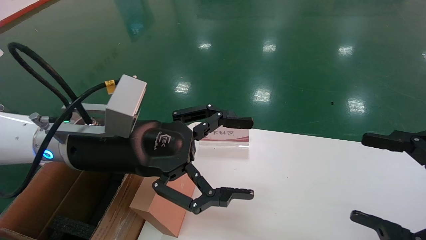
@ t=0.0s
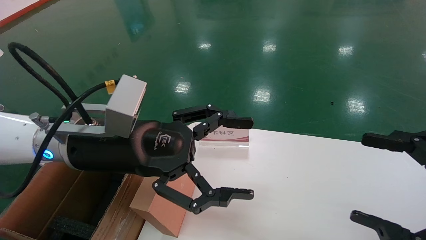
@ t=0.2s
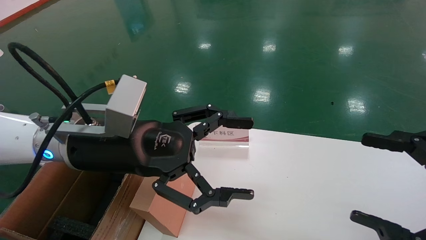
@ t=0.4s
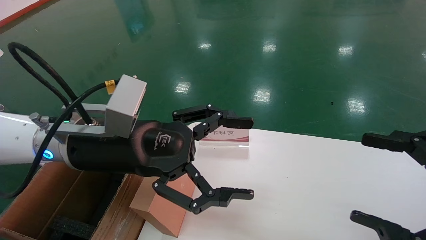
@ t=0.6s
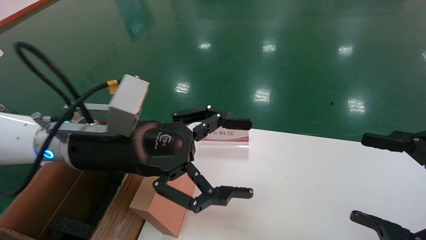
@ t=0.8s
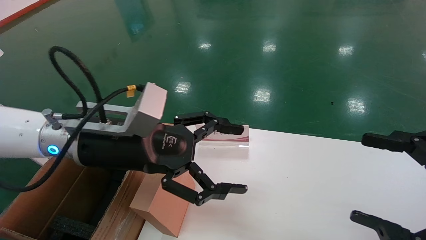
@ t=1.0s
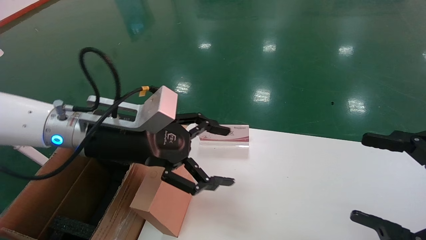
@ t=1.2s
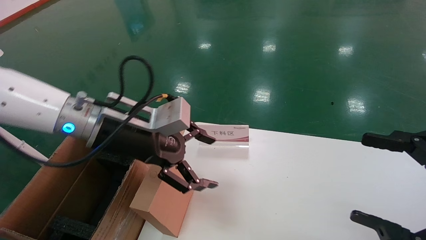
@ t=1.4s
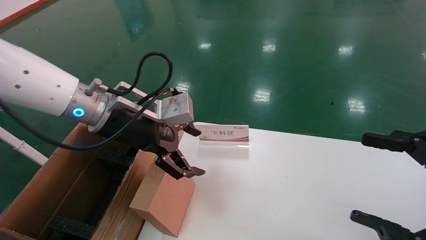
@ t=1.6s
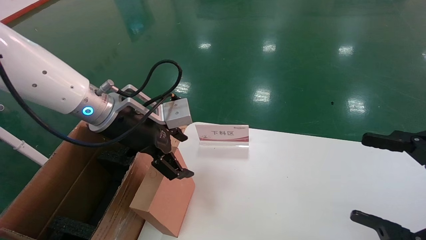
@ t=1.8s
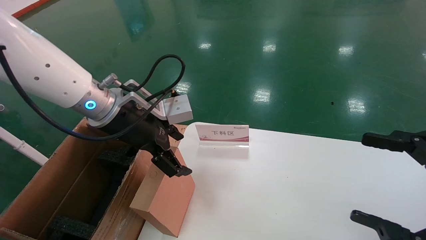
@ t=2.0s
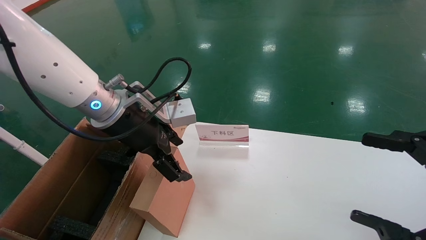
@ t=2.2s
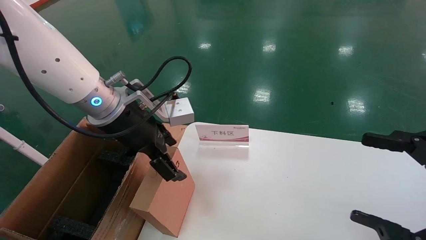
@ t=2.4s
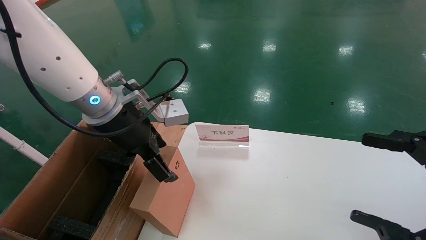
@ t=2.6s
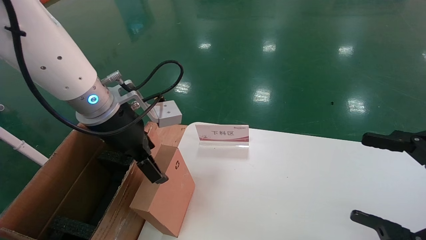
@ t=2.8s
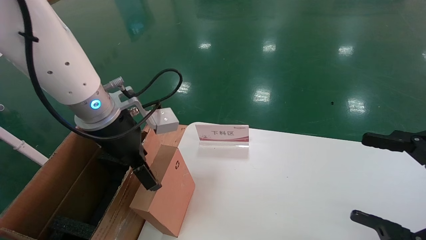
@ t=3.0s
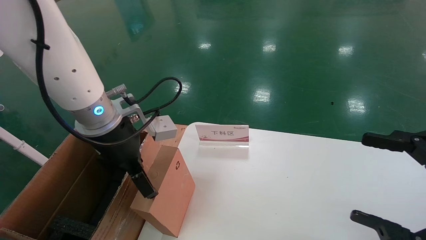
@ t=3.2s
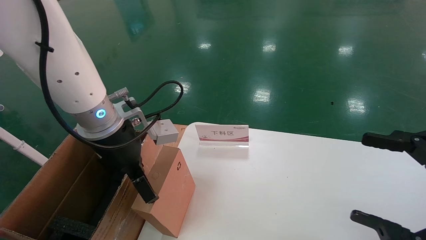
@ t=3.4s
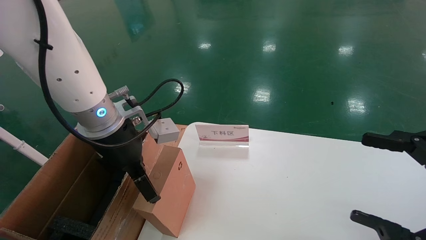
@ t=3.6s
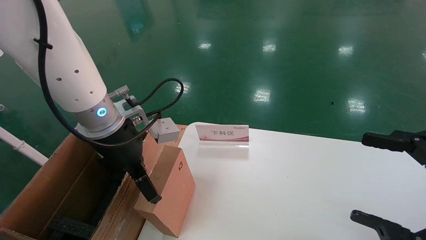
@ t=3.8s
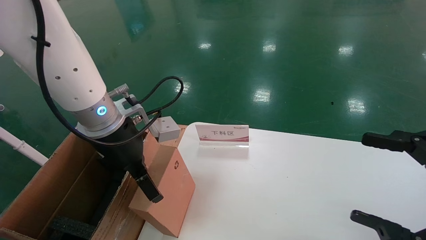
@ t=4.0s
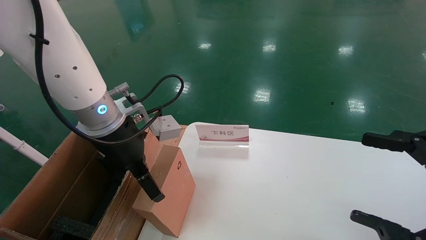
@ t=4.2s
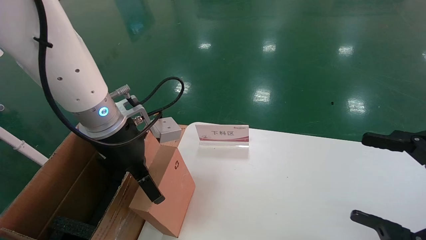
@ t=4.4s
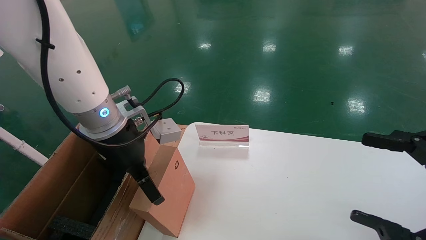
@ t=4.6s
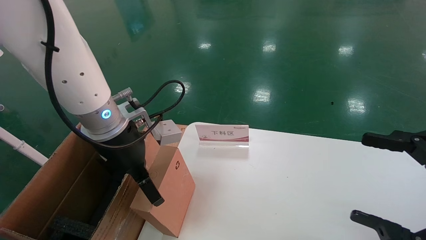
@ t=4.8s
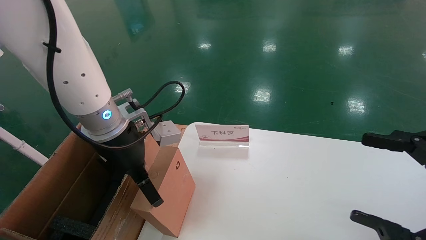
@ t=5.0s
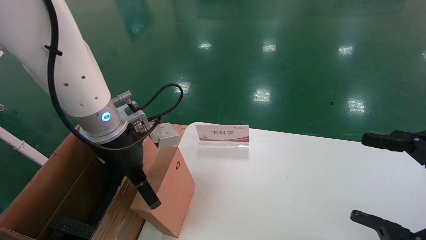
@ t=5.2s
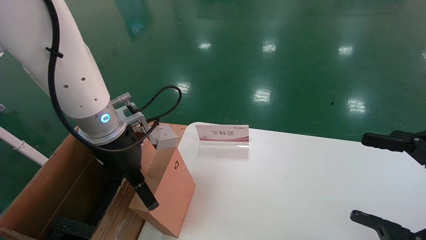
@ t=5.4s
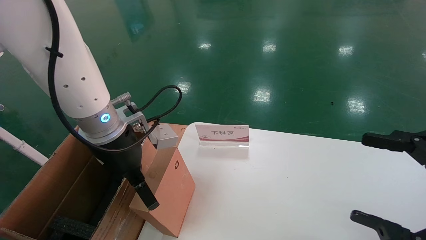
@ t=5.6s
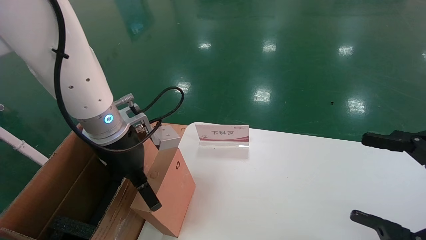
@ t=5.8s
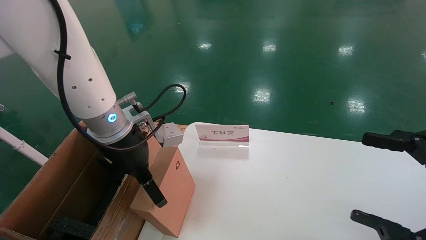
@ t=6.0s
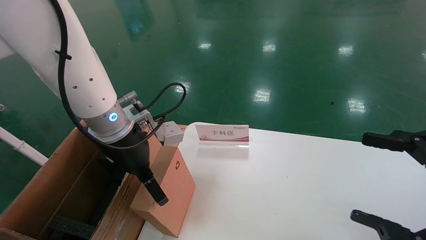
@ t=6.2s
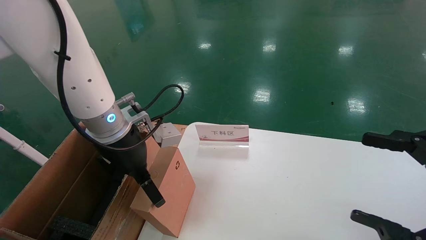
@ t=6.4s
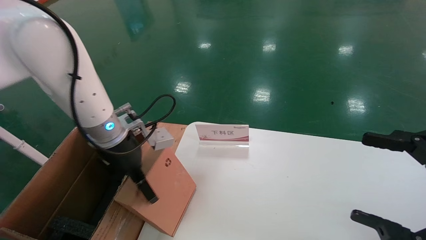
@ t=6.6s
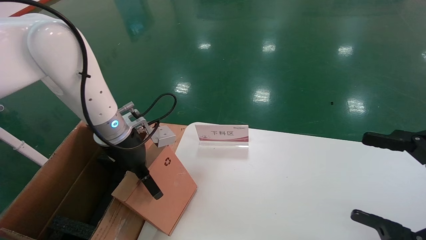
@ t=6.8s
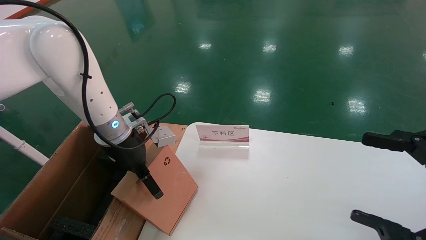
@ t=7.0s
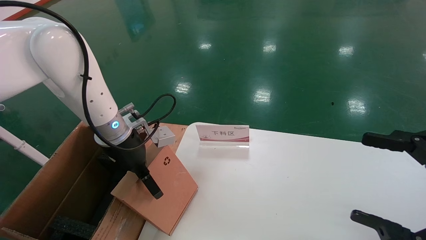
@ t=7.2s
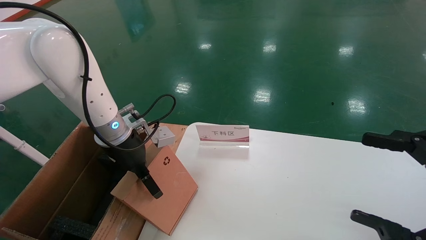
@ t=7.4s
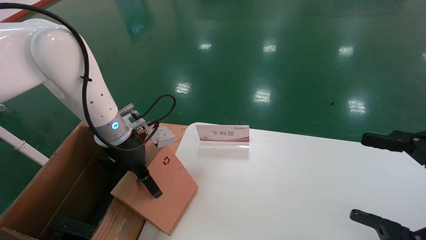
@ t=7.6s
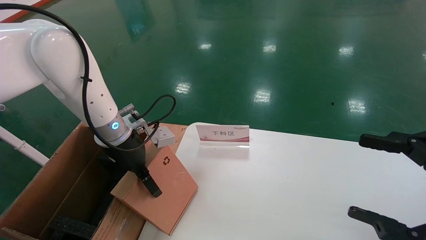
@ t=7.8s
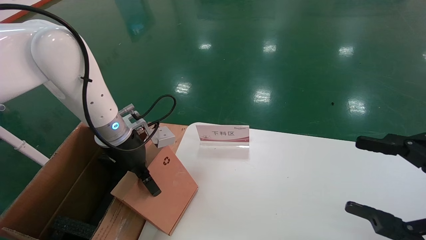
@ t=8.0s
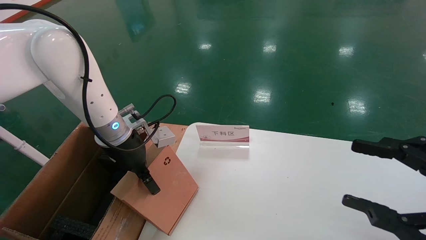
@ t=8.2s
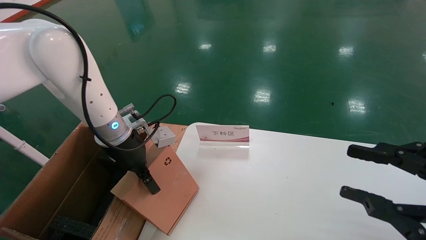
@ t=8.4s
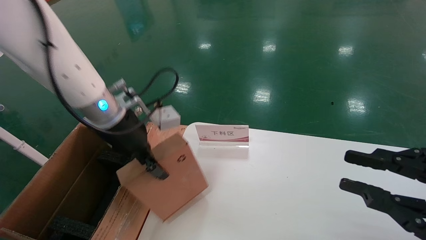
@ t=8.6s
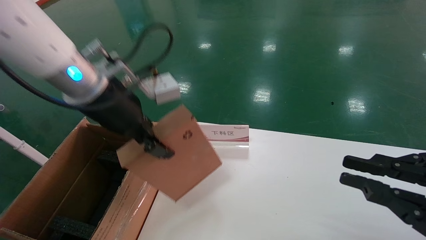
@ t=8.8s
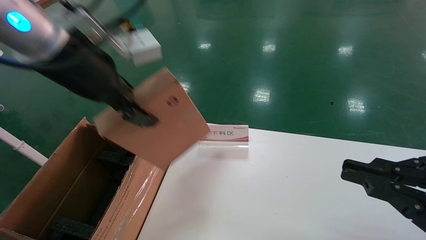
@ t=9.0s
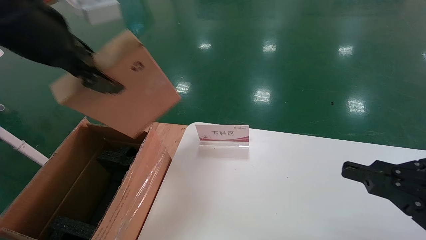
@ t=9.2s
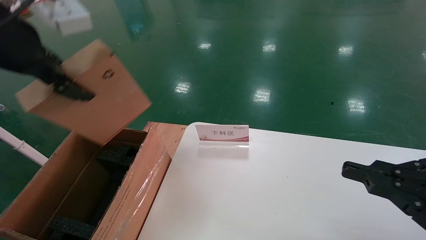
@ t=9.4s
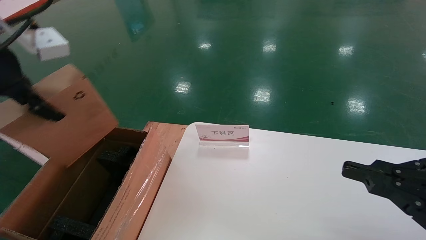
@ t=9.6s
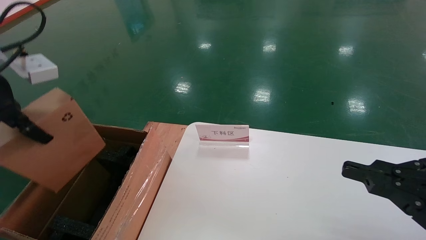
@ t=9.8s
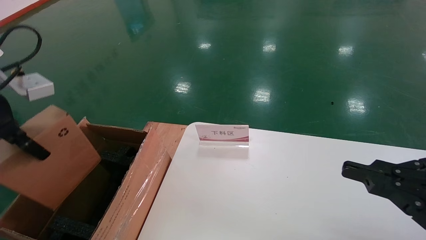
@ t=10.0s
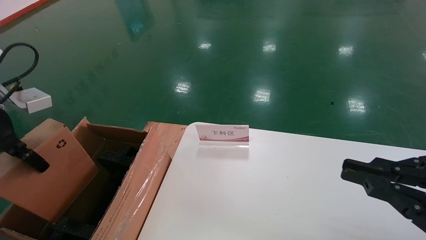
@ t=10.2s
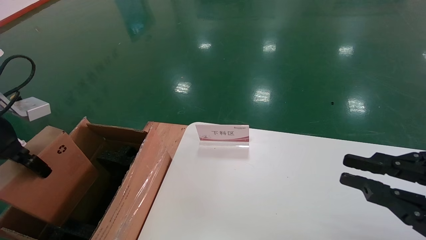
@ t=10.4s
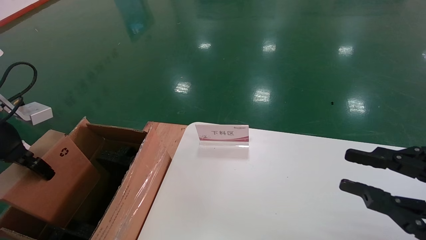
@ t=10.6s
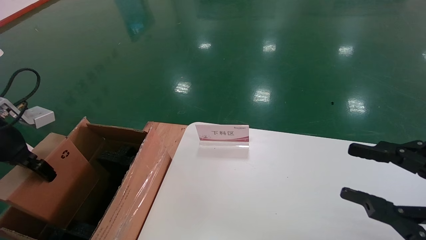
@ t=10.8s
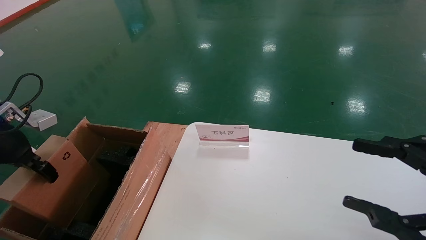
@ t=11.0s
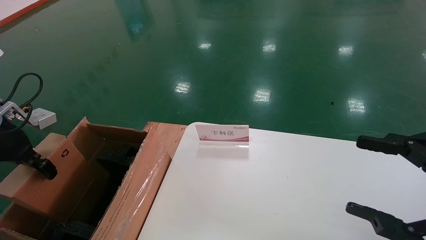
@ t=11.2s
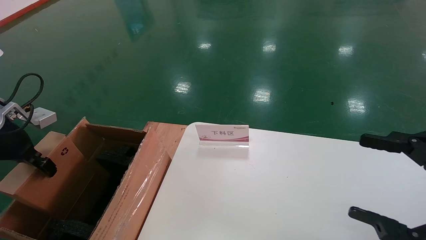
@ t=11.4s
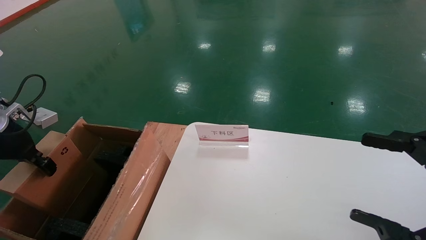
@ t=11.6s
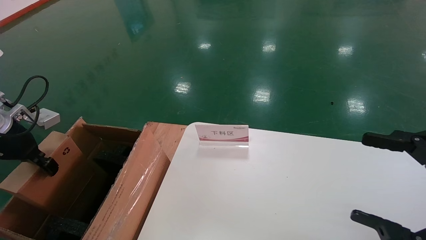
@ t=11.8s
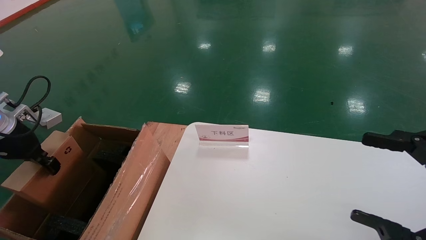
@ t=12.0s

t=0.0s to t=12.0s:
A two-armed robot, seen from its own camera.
Task of the whole recording: pick up the small cardboard box and load it into the large cardboard box.
Step, t=1.2s to t=8.6s: Pick up the mouse and power cord box.
t=0.0s to t=1.6s: The left gripper moves forward, approximately 5 cm.
t=3.0s to t=6.0s: The grippers move only a little.
t=6.0s to t=7.6s: The left gripper shifts approximately 5 cm forward.
t=7.6s to t=9.0s: The left gripper shifts some 20 cm upward and backward, and closes its fingers; the right gripper closes up.
t=9.0s to t=10.4s: The left gripper goes some 20 cm to the left and downward.
t=10.4s to t=12.0s: The right gripper opens; the left gripper is displaced downward and forward by approximately 10 cm.

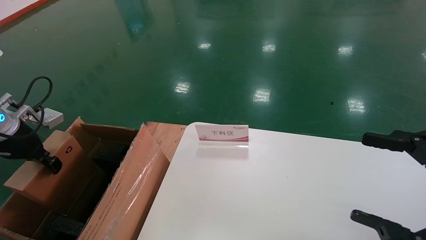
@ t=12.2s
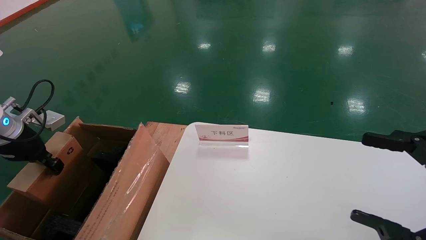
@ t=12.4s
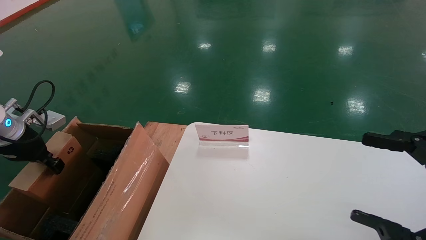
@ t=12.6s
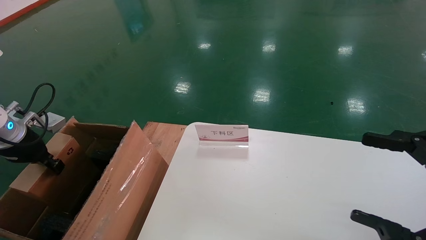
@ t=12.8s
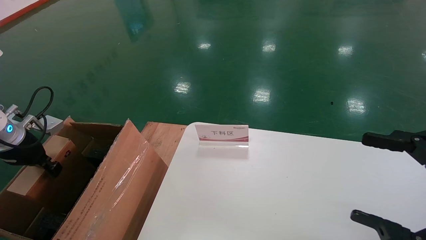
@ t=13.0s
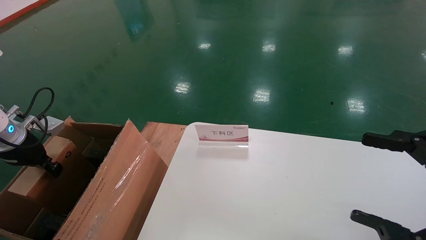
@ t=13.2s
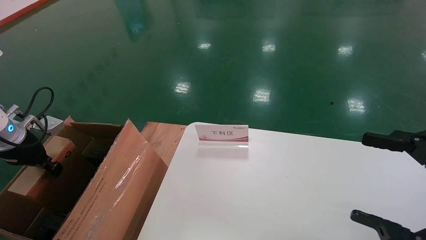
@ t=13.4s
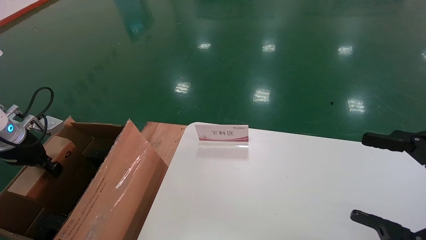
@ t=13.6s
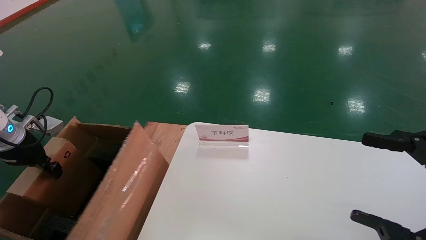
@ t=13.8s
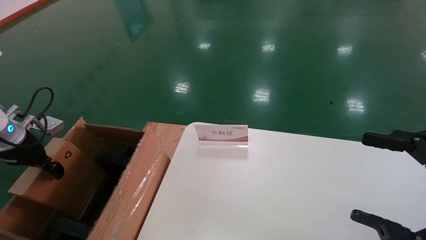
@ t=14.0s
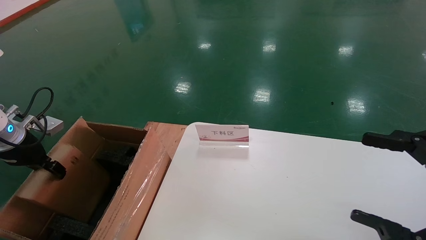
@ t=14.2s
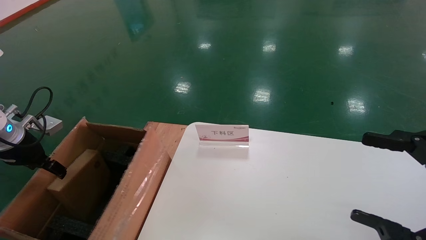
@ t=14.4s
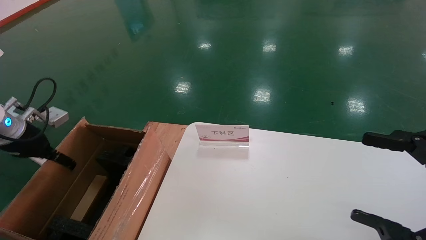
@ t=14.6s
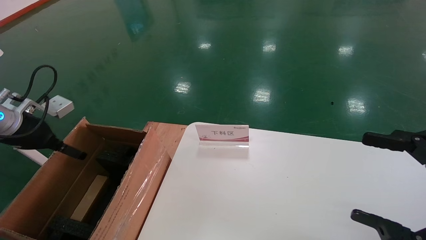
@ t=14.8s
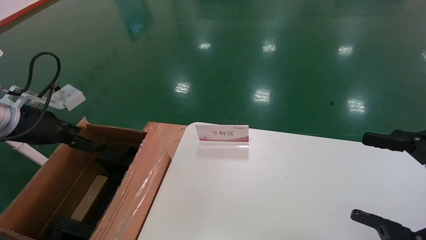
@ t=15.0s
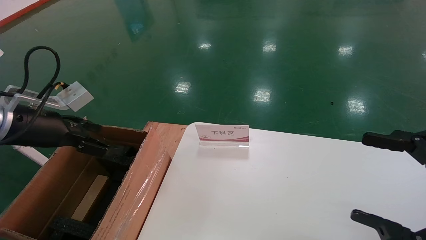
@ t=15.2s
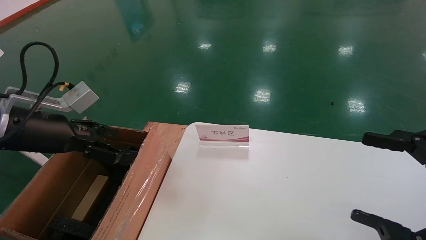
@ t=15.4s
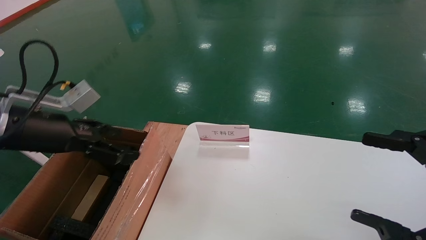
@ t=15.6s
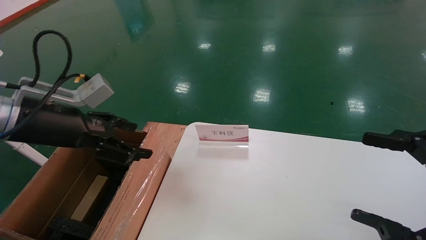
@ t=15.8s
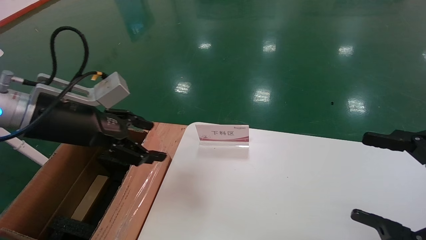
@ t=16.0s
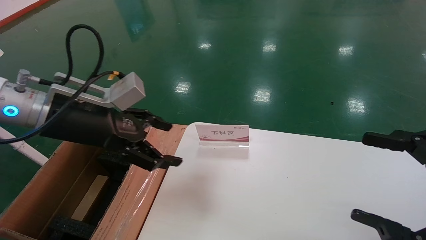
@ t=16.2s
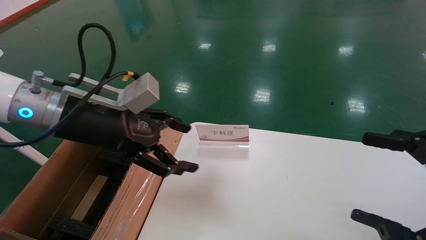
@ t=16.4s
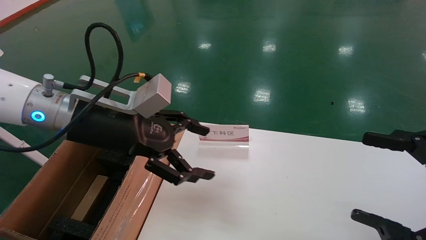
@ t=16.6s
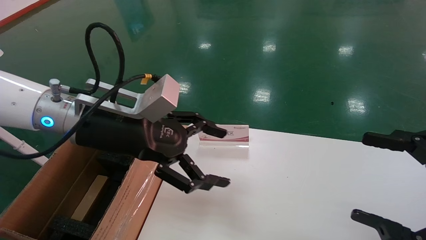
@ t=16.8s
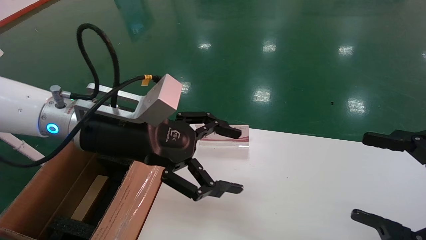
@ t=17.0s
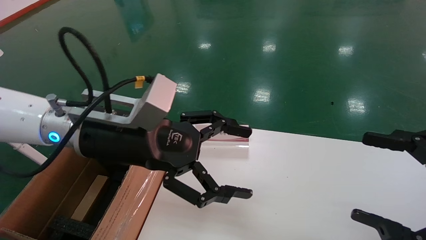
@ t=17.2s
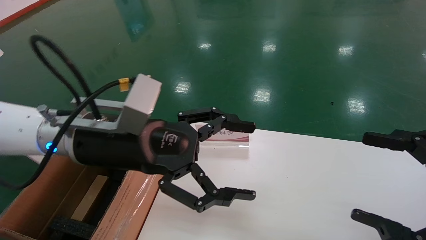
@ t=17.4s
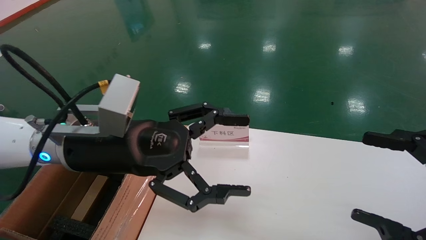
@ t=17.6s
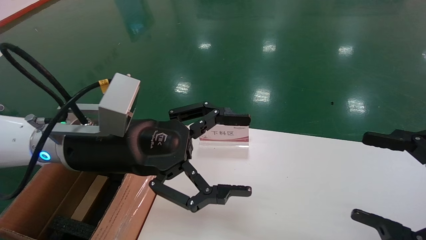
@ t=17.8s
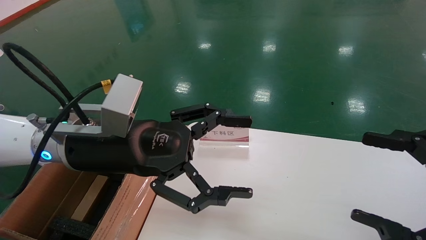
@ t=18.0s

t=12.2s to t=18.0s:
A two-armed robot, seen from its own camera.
Task of the whole recording: pick up the small cardboard box and load it into the large cardboard box.
Step, t=12.2s to t=14.4s: Place the mouse and power cord box into the case.
t=12.2s to t=13.6s: The grippers make only small movements.
t=13.6s to t=15.0s: The left gripper is displaced to the right and upward by about 10 cm, and opens.
t=15.0s to t=16.6s: The left gripper moves to the right, some 20 cm.
